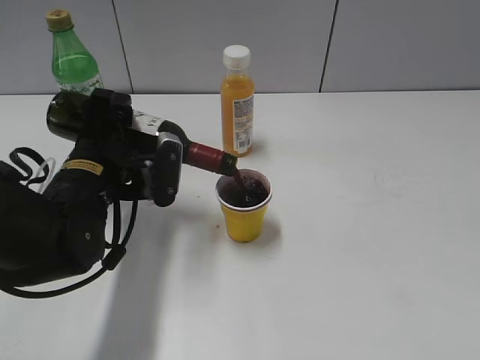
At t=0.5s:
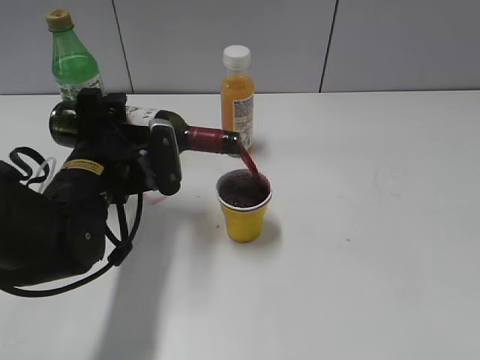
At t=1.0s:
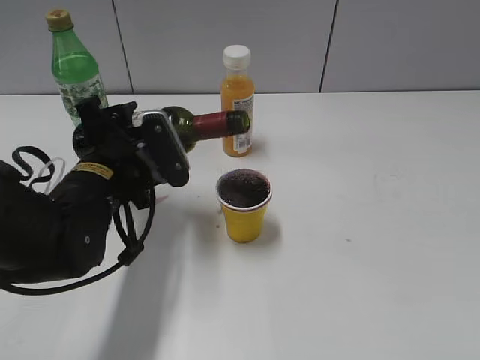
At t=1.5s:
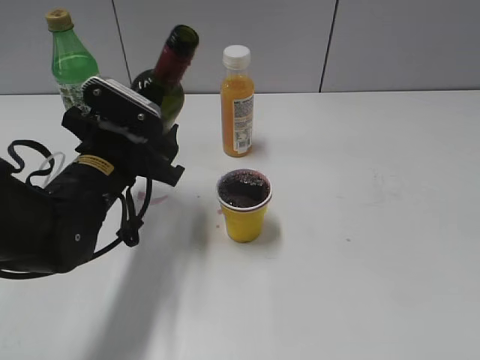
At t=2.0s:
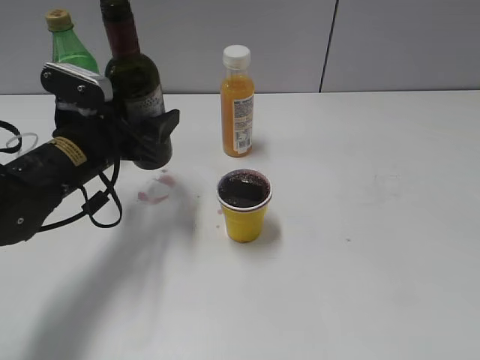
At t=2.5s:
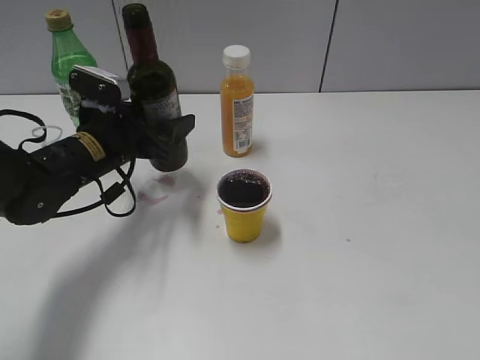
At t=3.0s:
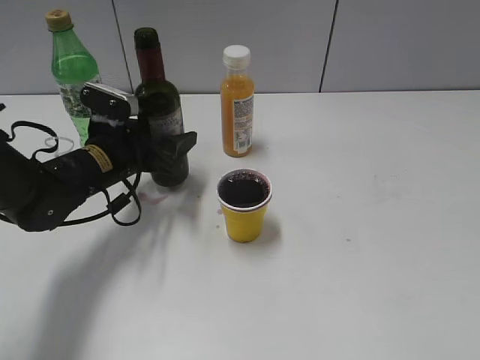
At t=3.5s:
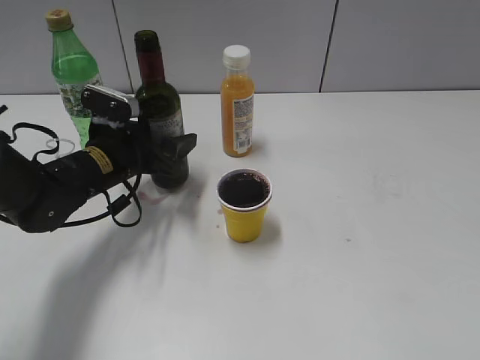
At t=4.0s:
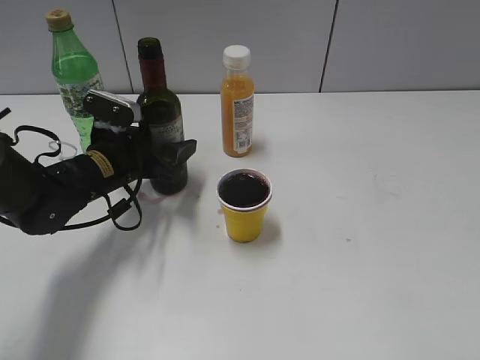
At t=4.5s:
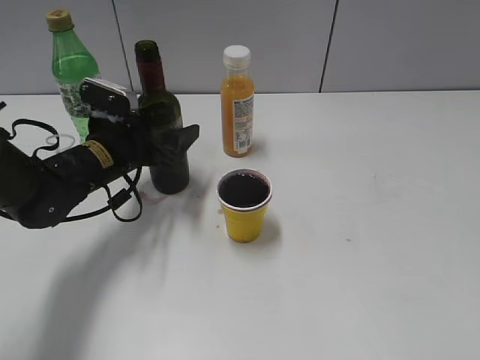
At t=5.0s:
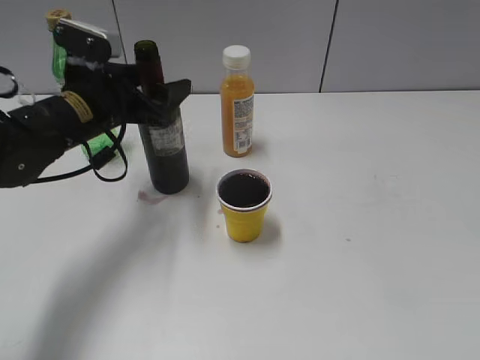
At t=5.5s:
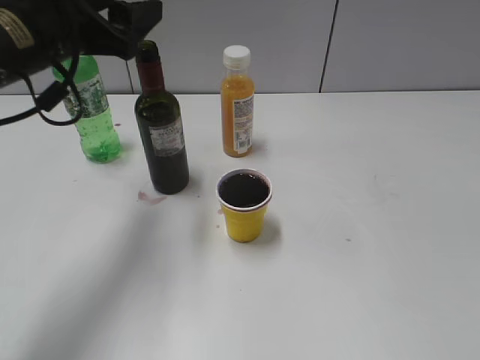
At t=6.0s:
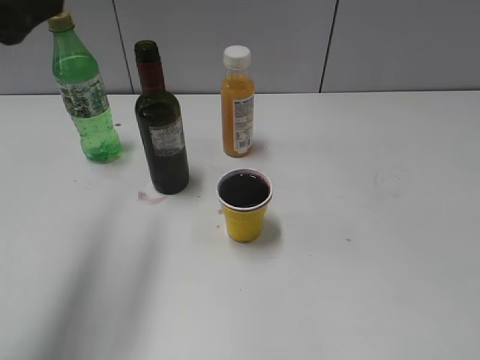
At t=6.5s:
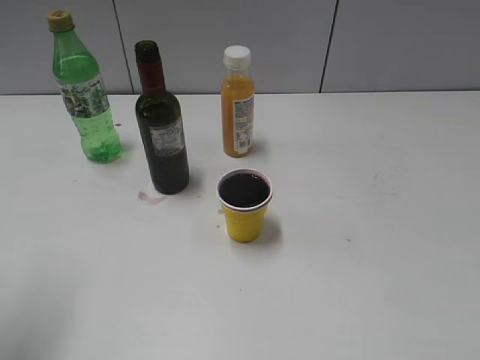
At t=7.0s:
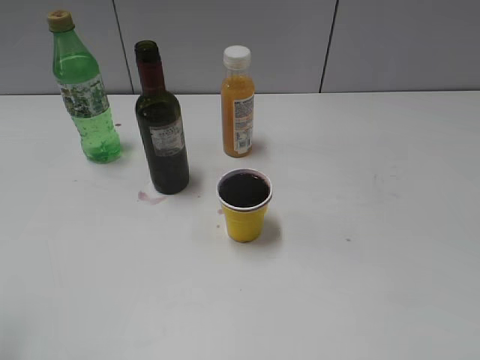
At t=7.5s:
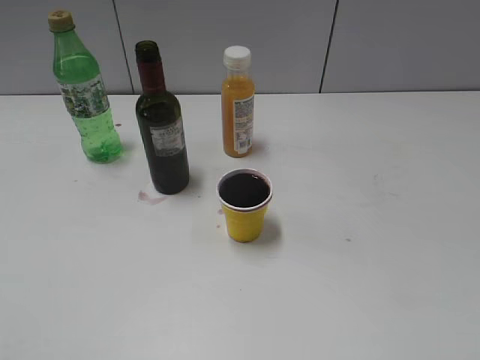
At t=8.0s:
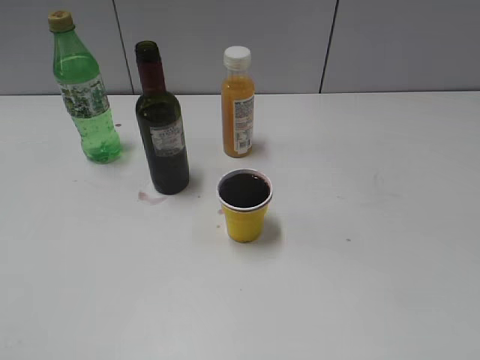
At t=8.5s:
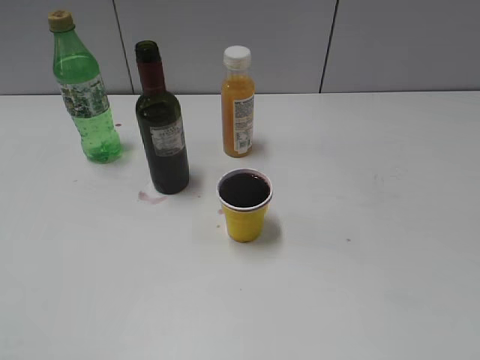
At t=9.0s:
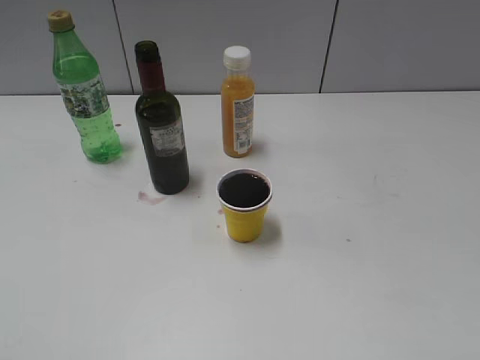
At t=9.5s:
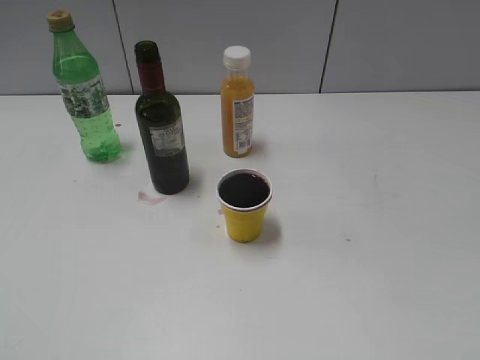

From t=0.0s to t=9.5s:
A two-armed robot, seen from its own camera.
Step, from t=1.5s to t=4.5s: Place the red wine bottle on the table with left gripper.
From t=2.0s to t=4.0s: The left gripper moves downward, some 5 cm.
From t=4.0s to t=5.5s: The left gripper goes approximately 20 cm upward.
From t=5.5s to t=7.5s: The left gripper moves backward and to the left, about 30 cm.

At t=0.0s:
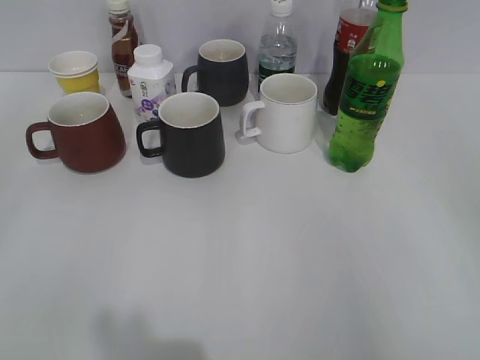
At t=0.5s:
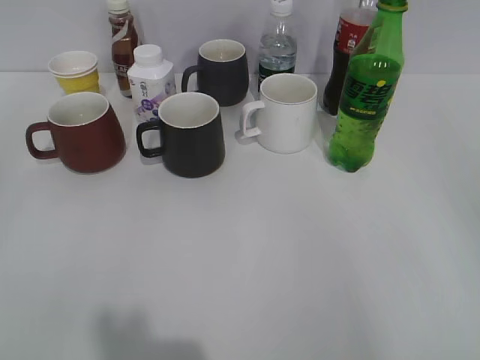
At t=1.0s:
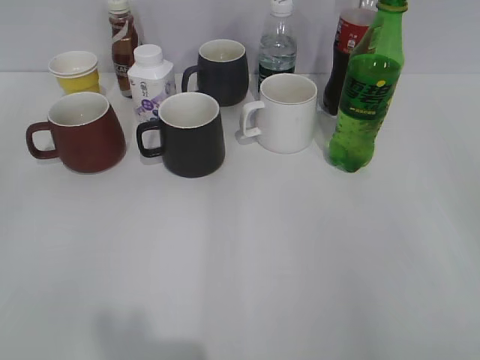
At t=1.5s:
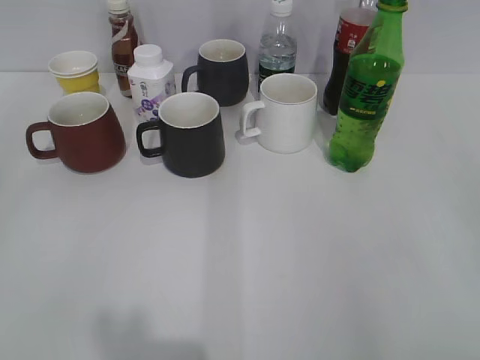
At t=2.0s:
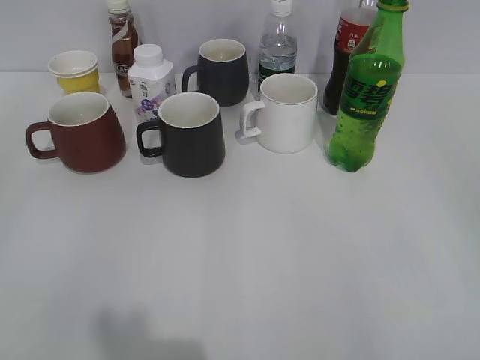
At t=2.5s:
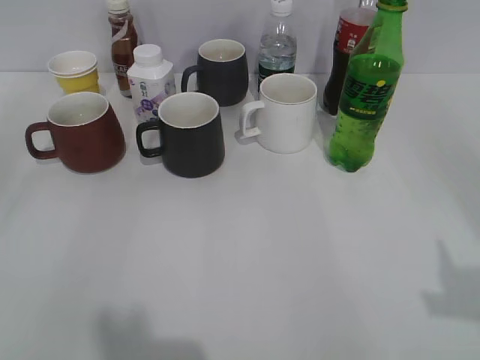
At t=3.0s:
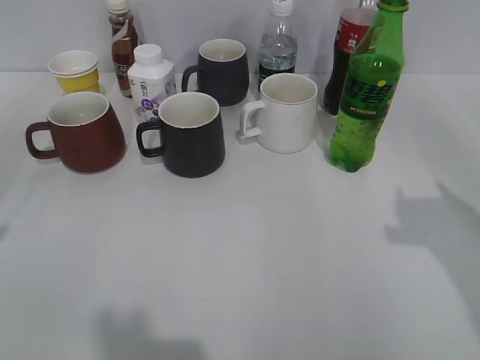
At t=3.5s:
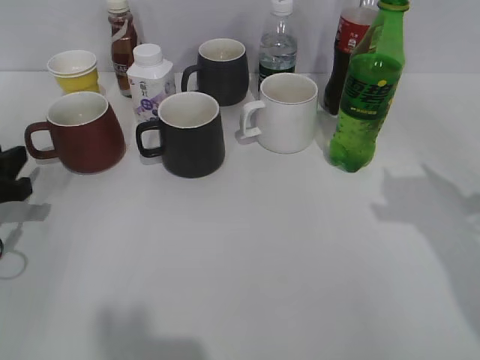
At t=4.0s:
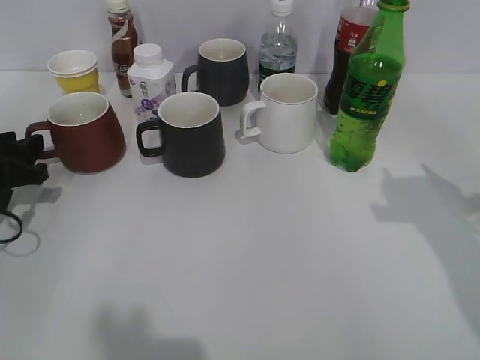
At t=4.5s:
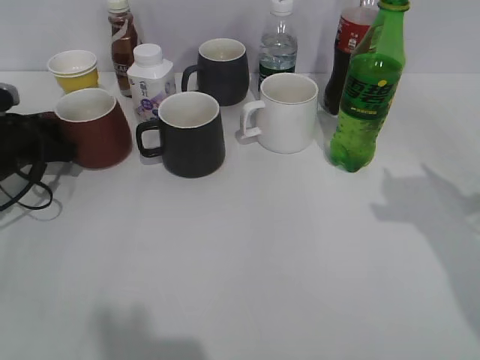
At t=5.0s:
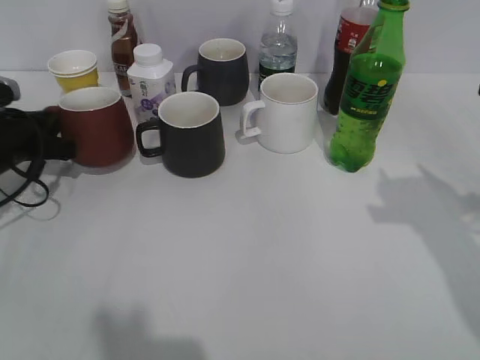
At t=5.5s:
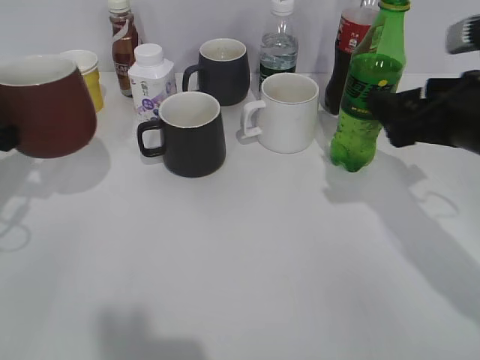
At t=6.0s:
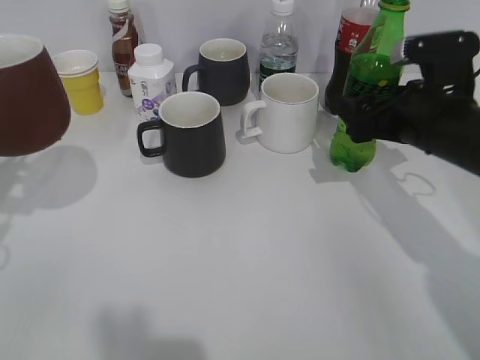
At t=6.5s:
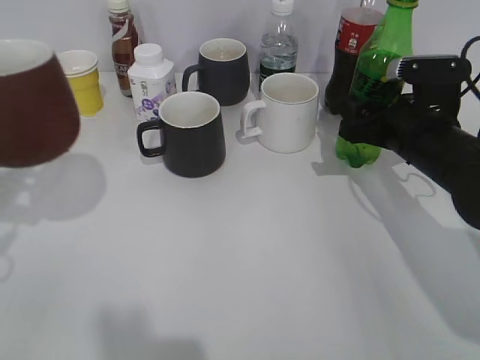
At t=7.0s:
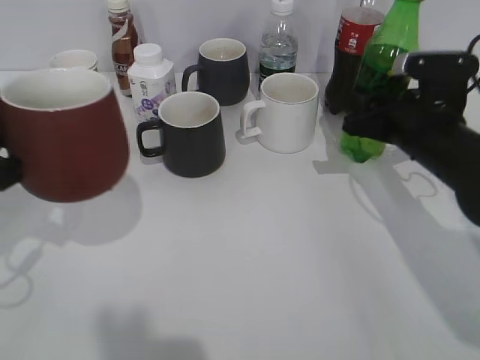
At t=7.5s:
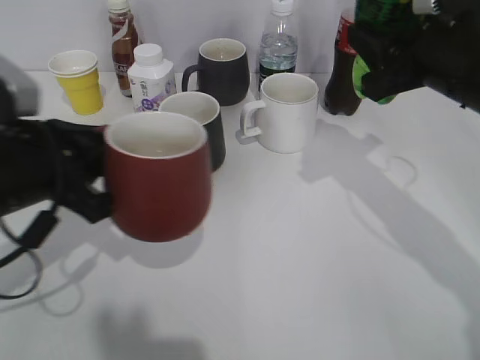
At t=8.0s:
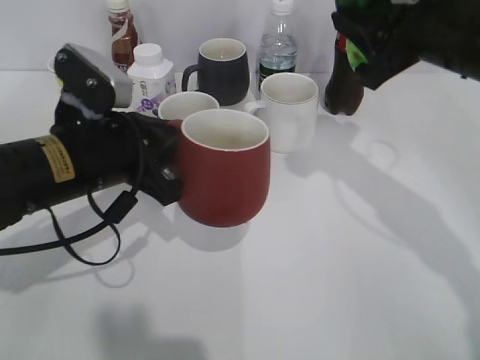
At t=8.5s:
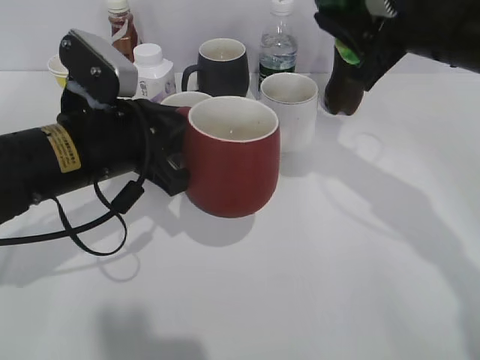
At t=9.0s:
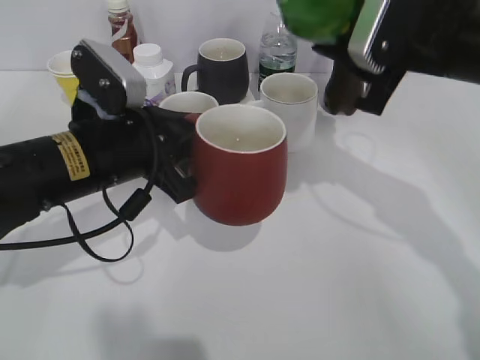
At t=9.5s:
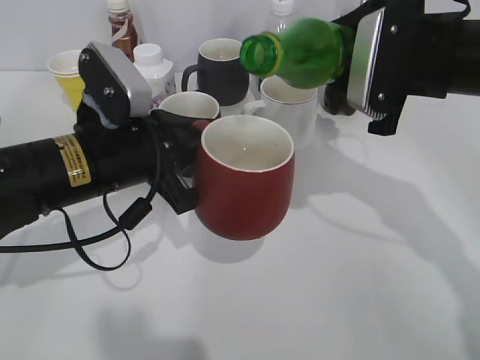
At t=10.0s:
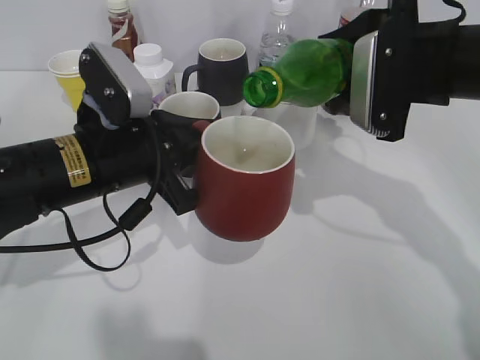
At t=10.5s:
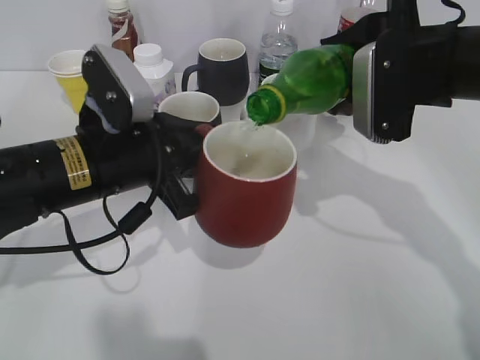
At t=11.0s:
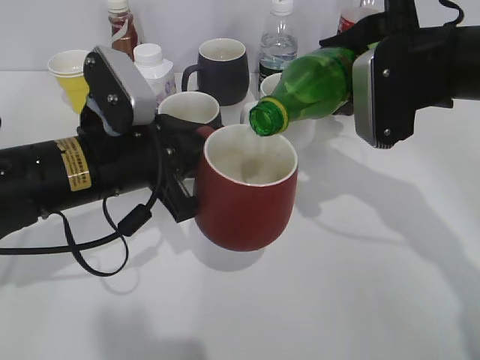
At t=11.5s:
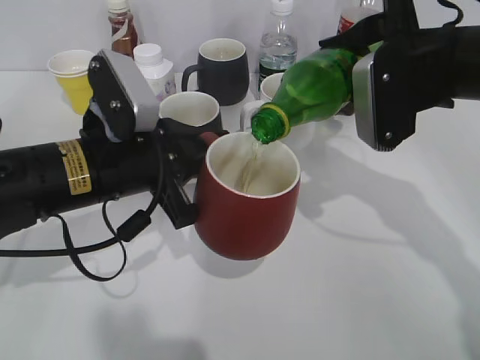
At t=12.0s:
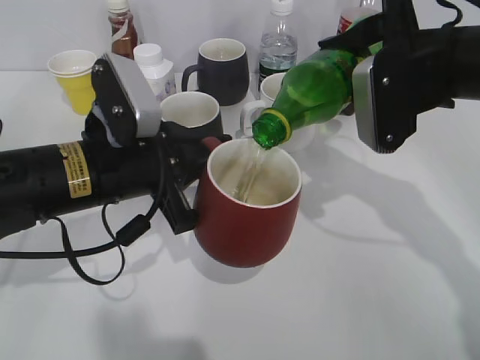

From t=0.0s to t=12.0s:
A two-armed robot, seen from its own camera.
Step, from t=2.0s to t=4.5s: Grasp the red cup with left gripper.
Step, from t=5.0s to t=6.5s: Grasp the bottle with sprite with right gripper.
From t=2.0s to t=4.0s: The left gripper moves forward and downward, some 30 cm. The right gripper travels forward by some 20 cm.
From t=4.0s to t=6.0s: The left gripper goes approximately 15 cm upward and backward, and closes up; the right gripper is displaced forward, downward and to the left by roughly 15 cm, and opens up.
From t=6.0s to t=8.0s: The left gripper moves to the right, some 15 cm; the right gripper moves upward, roughly 10 cm, and closes up.
From t=10.0s to t=12.0s: There are only small adjustments of the grippers.

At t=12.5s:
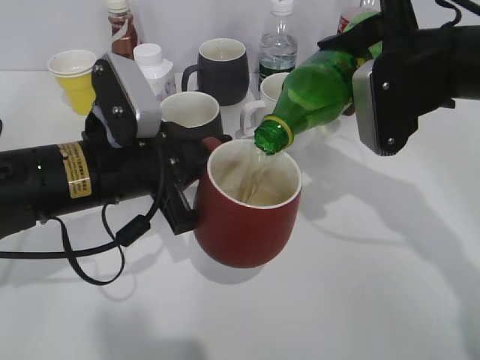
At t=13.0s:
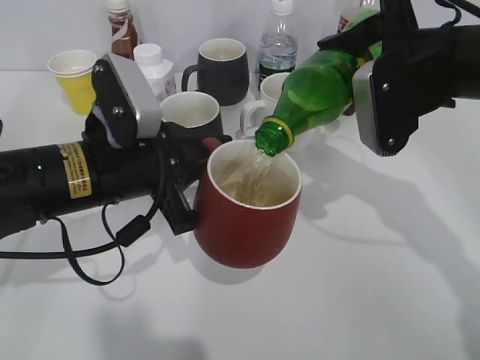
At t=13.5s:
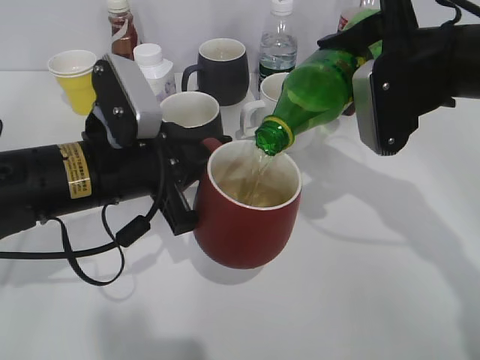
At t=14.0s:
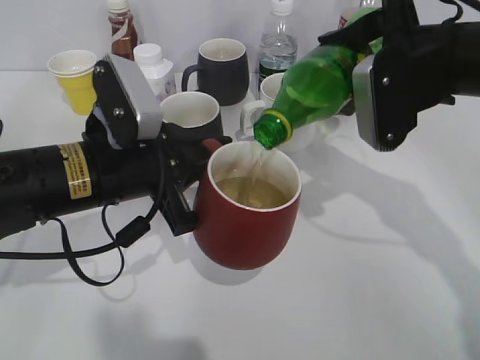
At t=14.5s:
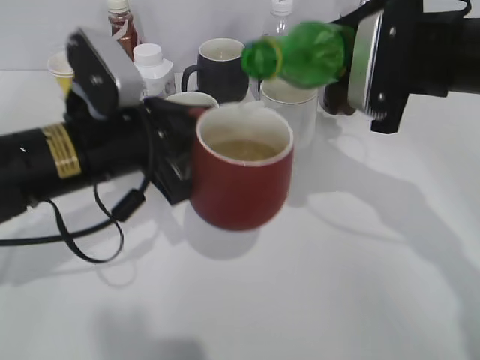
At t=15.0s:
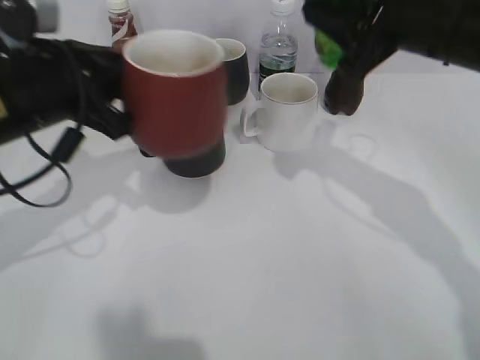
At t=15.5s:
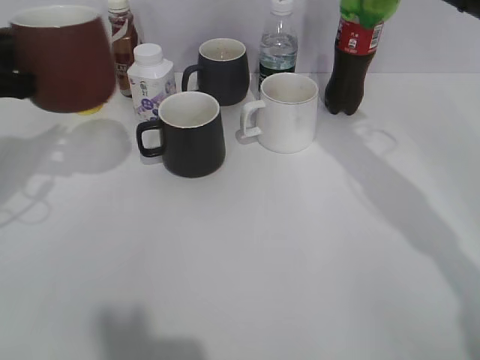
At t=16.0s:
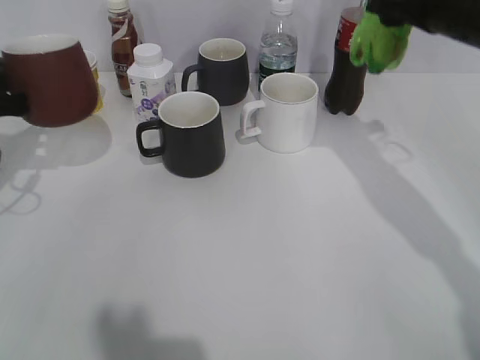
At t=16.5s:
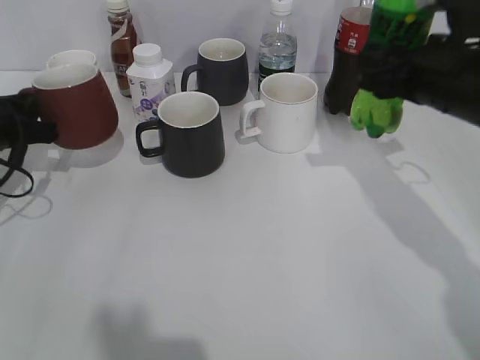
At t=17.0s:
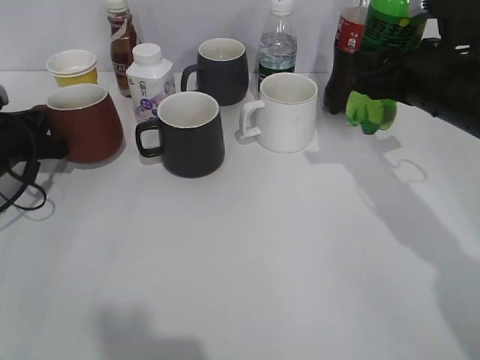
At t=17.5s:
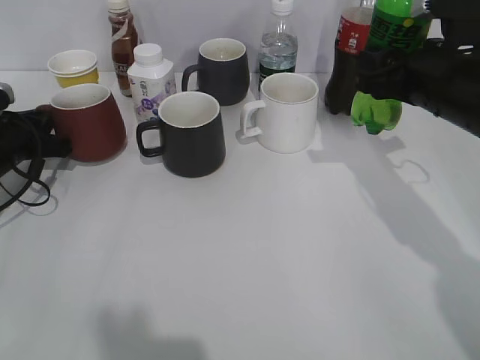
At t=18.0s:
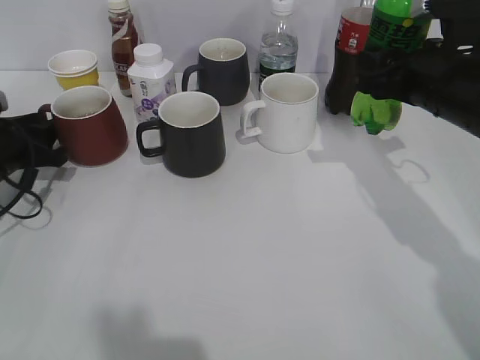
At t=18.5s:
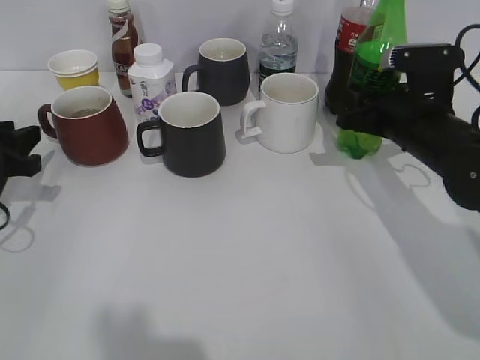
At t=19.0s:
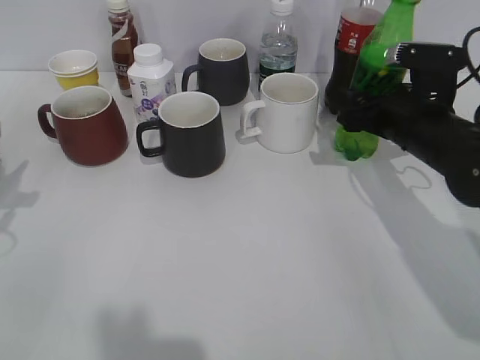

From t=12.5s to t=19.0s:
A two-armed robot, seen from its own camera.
Step, from t=12.5s to t=14.5s: Pour the sprite from bottle to cup with right gripper.
Step, from t=15.0s to t=15.5s: Place the red cup on the table with left gripper.
From t=14.5s to t=17.0s: The left gripper shifts approximately 20 cm to the left, forward and downward; the right gripper moves about 5 cm.
From t=17.0s to t=19.0s: The left gripper goes approximately 15 cm backward and upward, and opens. The right gripper shifts approximately 5 cm downward, and opens its fingers.
